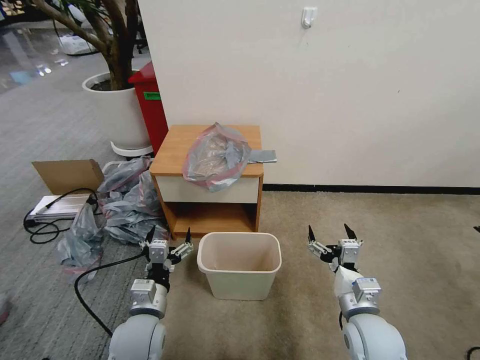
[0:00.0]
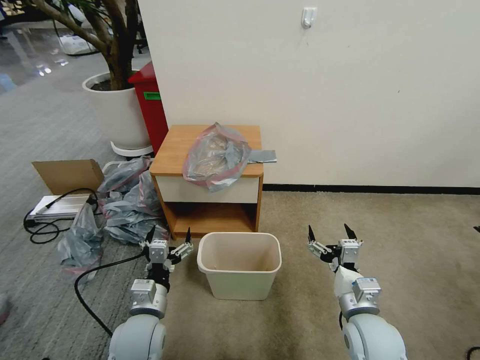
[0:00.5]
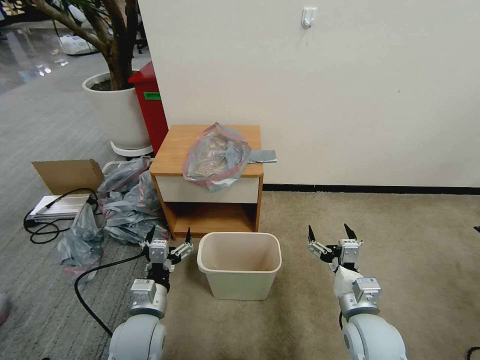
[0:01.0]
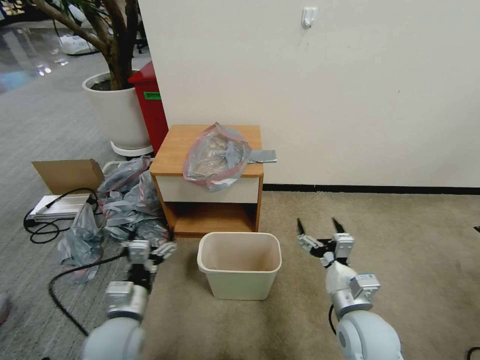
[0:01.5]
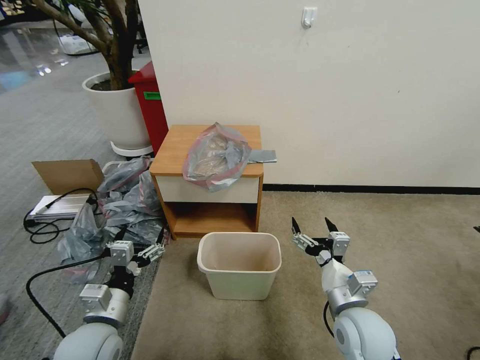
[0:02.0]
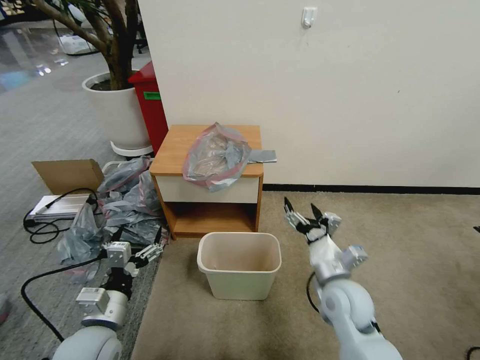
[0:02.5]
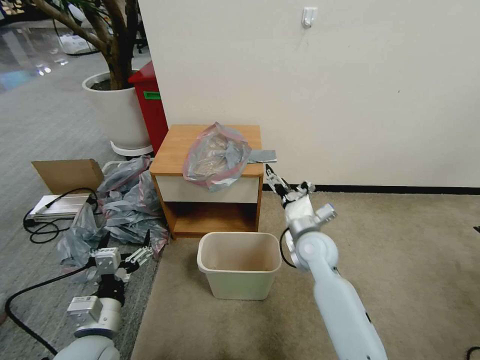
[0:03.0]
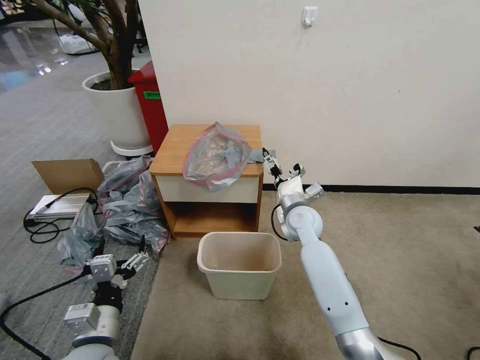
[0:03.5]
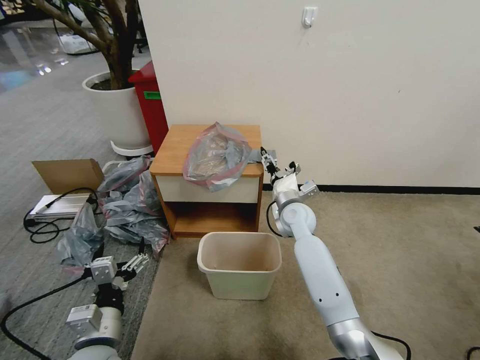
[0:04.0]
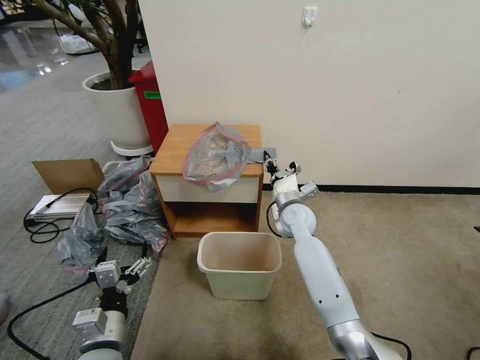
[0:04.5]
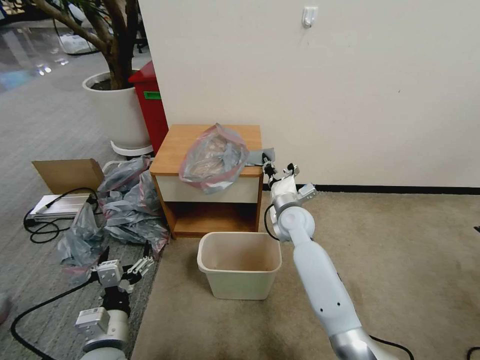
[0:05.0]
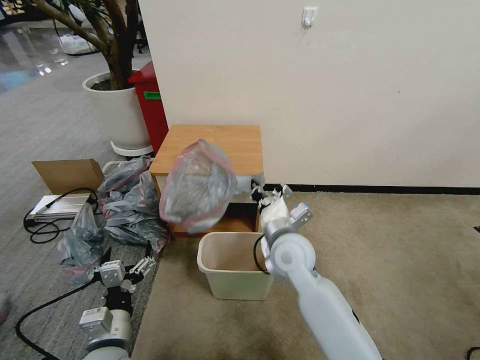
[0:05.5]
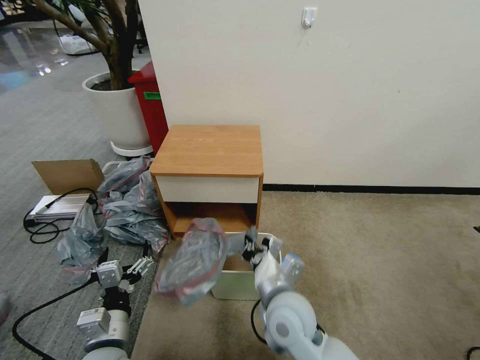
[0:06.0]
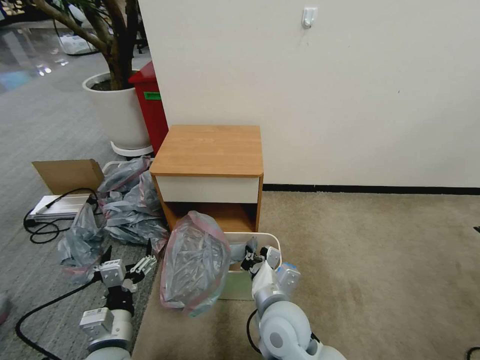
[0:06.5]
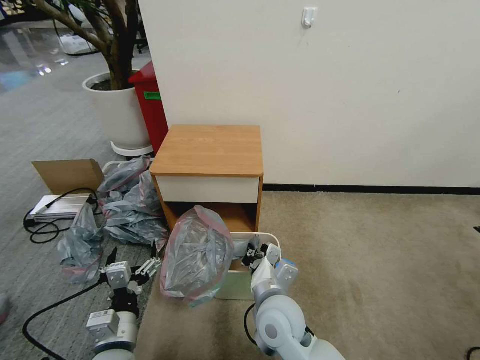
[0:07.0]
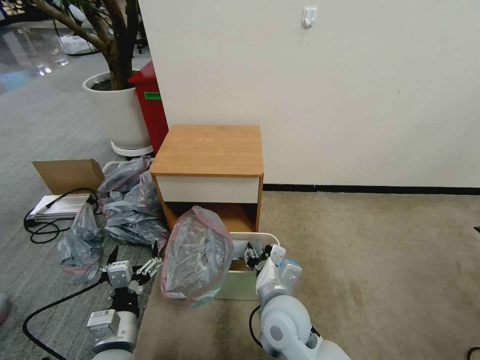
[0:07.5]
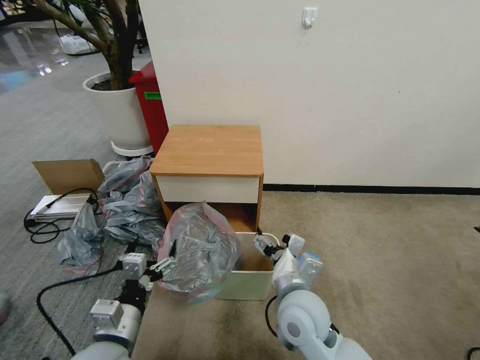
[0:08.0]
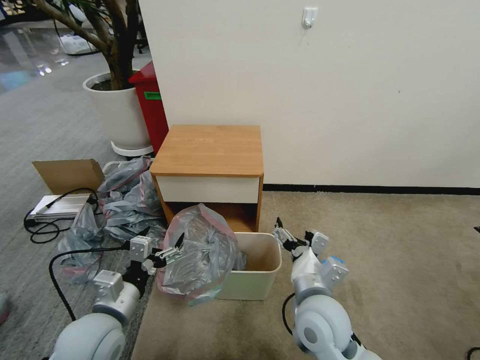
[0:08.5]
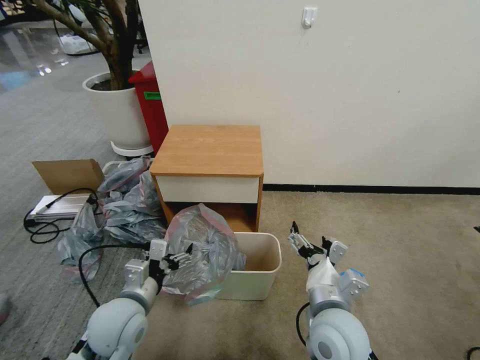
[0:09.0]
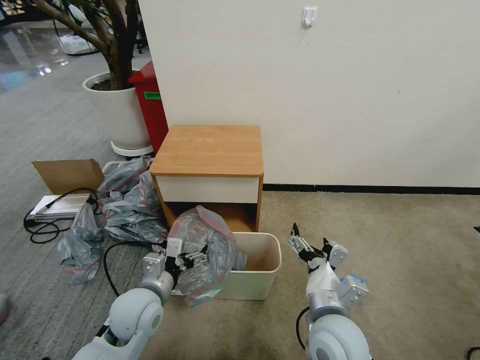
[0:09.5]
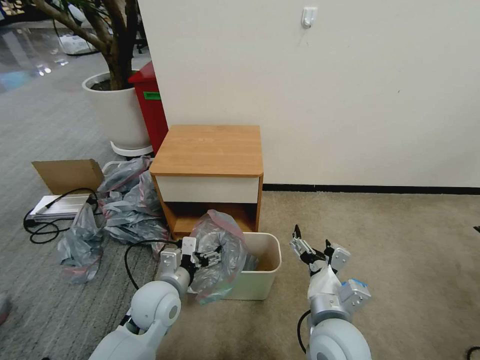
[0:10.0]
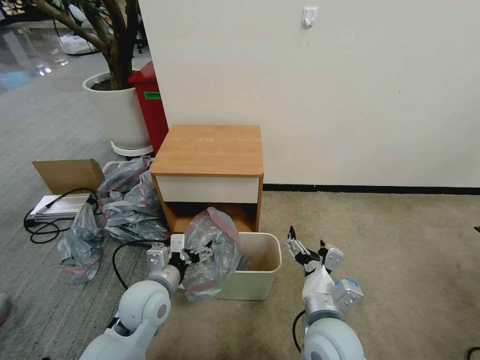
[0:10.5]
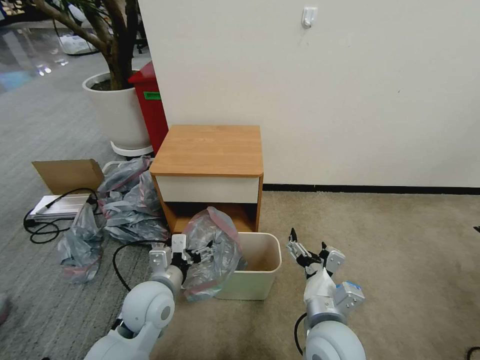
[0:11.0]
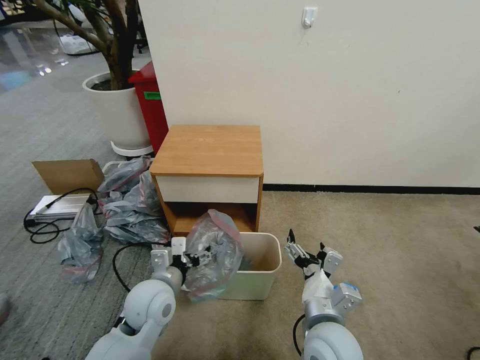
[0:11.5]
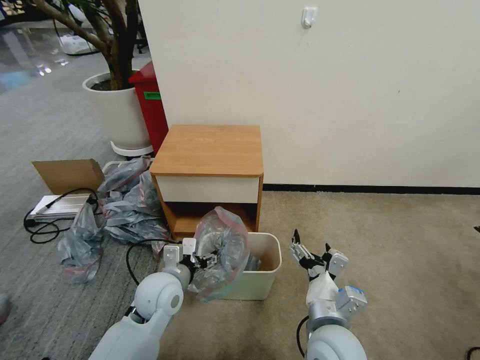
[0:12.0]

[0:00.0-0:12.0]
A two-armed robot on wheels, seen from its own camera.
Task of the whole recording: Pick up the garbage bag from the table and place it over the trash can.
0:02.0 to 0:04.0: The right gripper heads forward, covering approximately 25 cm, and closes its fingers.
0:04.0 to 0:06.0: The right gripper shifts approximately 25 cm backward, and closes up.
0:06.0 to 0:08.0: The right gripper opens.
0:08.0 to 0:10.0: The left gripper moves forward and to the right, some 15 cm. Meanwhile the right gripper shifts approximately 5 cm to the right.
0:10.0 to 0:12.0: The grippers stay close to where they were, moving slightly.

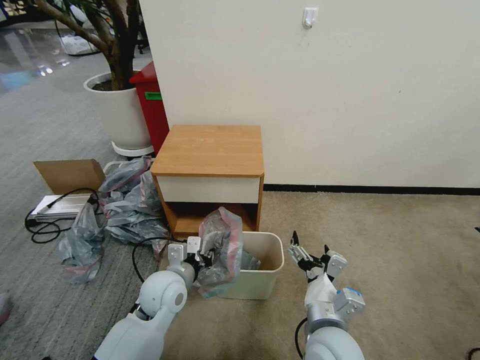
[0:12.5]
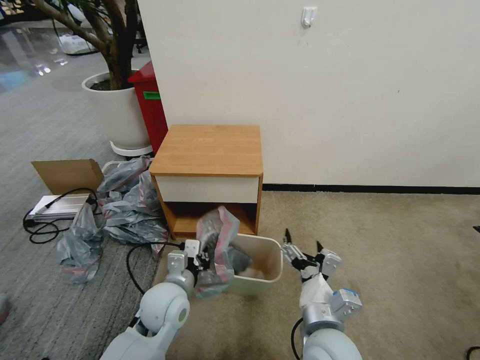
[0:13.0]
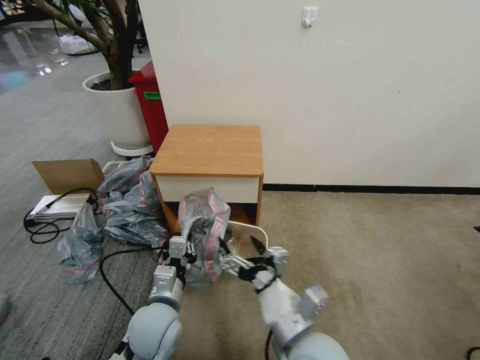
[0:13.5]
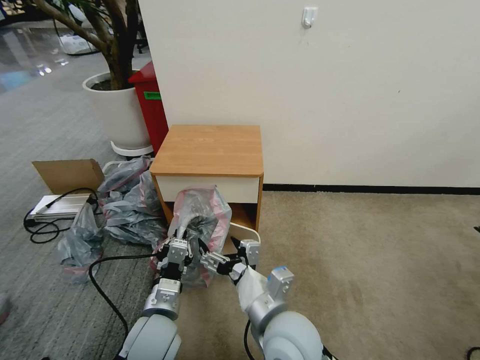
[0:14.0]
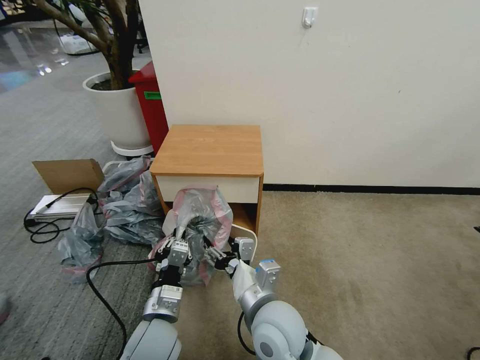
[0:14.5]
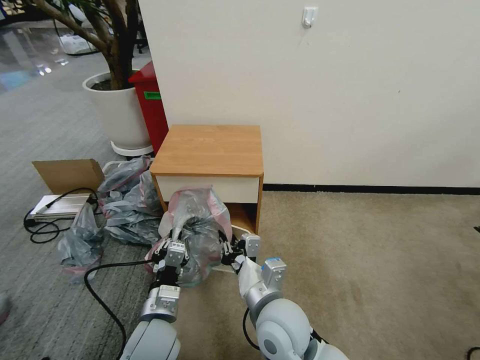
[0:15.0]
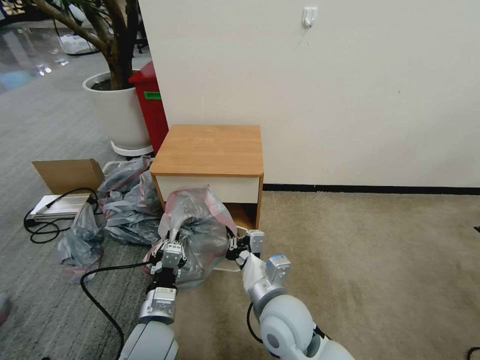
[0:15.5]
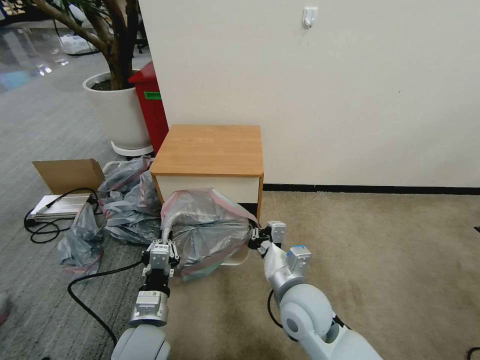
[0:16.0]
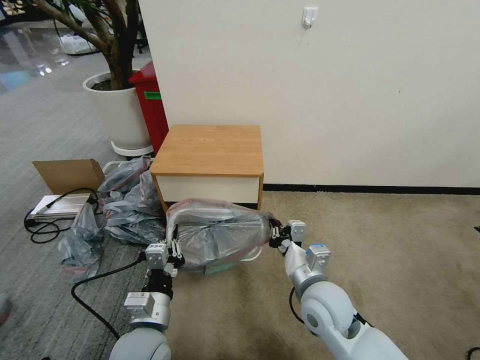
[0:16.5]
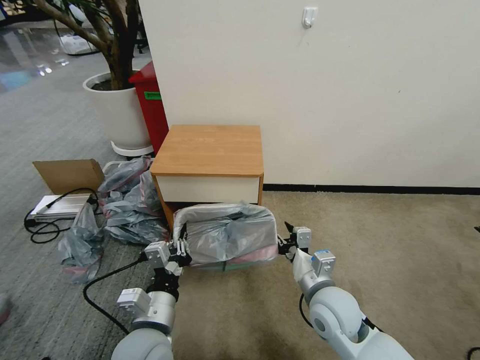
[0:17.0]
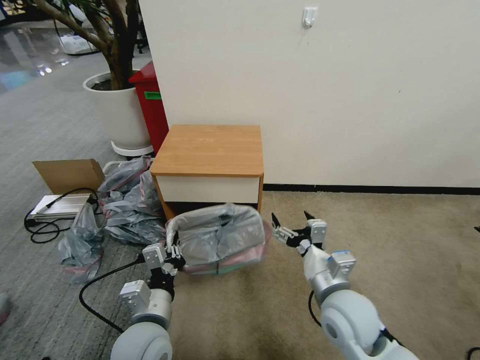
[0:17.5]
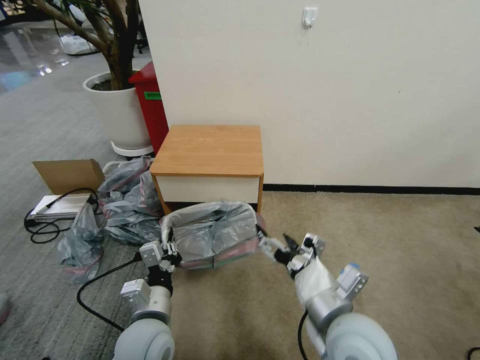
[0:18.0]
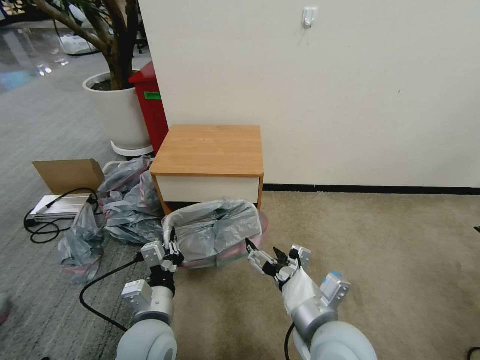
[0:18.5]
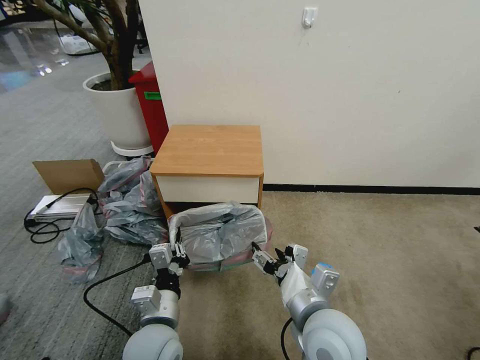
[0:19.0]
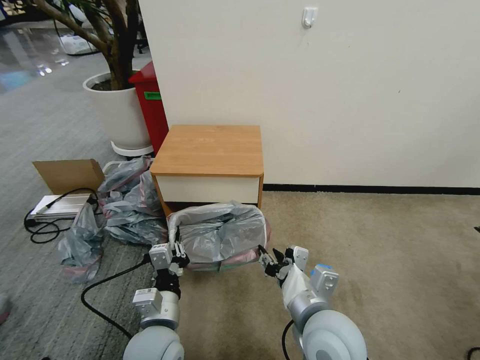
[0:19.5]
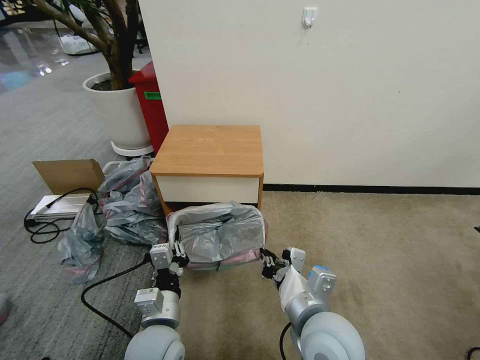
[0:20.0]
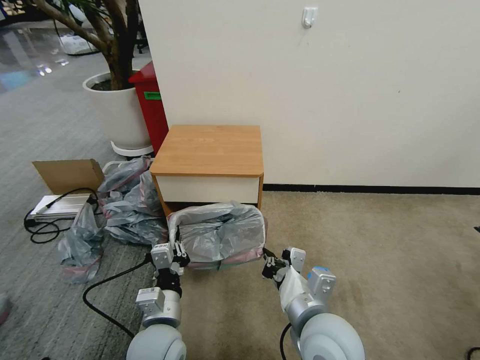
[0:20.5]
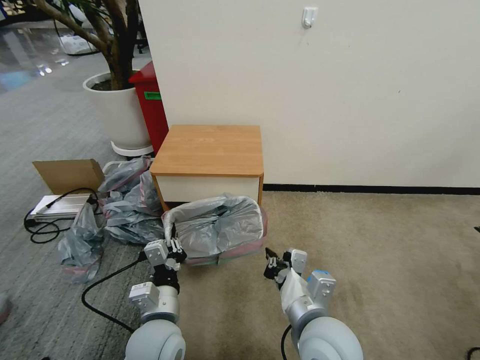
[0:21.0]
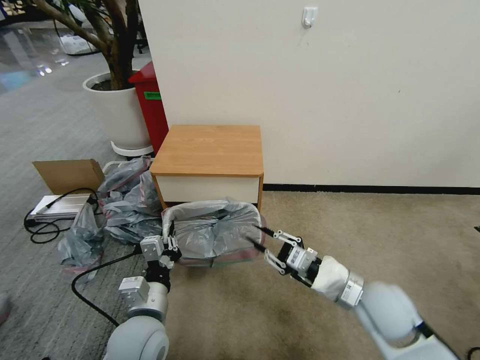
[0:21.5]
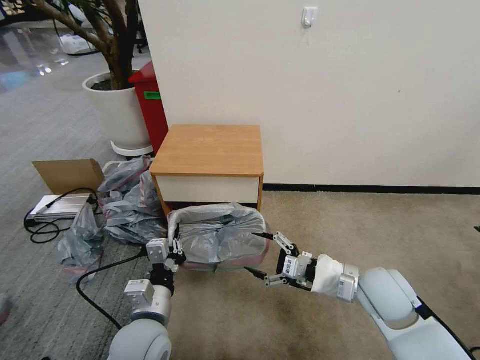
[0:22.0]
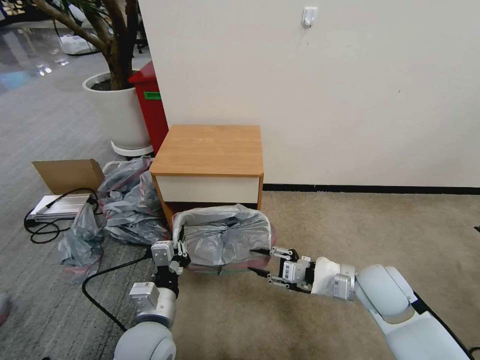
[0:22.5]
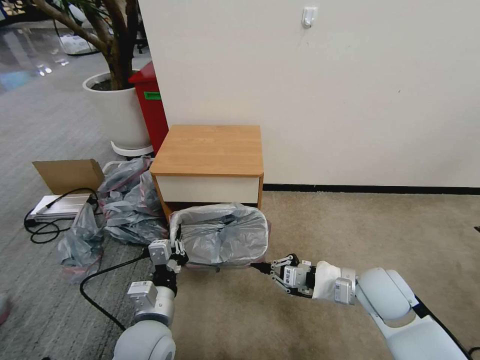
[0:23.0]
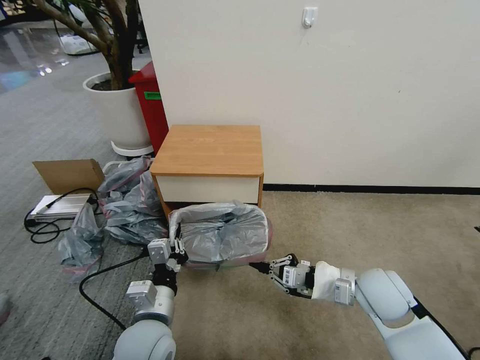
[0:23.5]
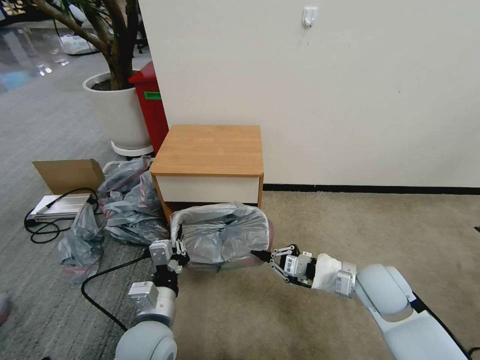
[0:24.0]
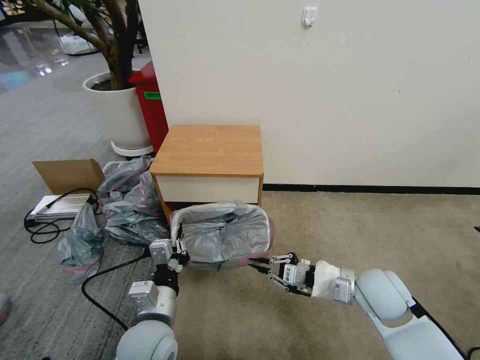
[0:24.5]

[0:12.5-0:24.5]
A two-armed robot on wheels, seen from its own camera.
Task of the whole recording: Pick up the garbage bag from the table and place it over the trash can.
0:12.5 to 0:14.5: The left gripper shifts roughly 10 cm backward. Meanwhile the right gripper heads to the left, covering approximately 10 cm.
0:14.5 to 0:16.5: The right gripper is displaced to the right by some 10 cm, and closes up.
0:16.5 to 0:18.5: The right gripper goes some 10 cm backward and upward, and opens its fingers.
0:18.5 to 0:20.5: The right gripper closes its fingers.
0:20.5 to 0:22.5: The right gripper travels to the right and forward by roughly 20 cm, and opens.
0:22.5 to 0:24.5: The grippers stay close to where they were, moving slightly.

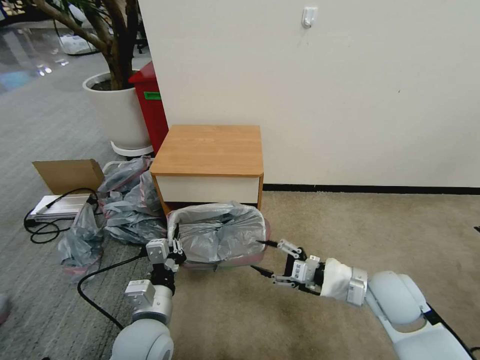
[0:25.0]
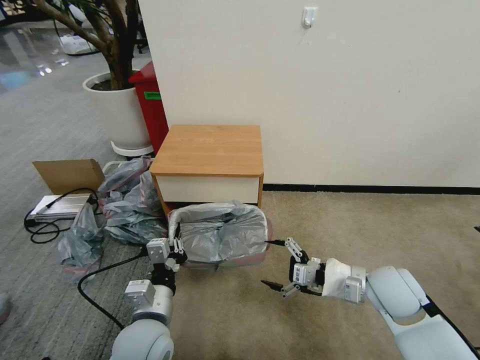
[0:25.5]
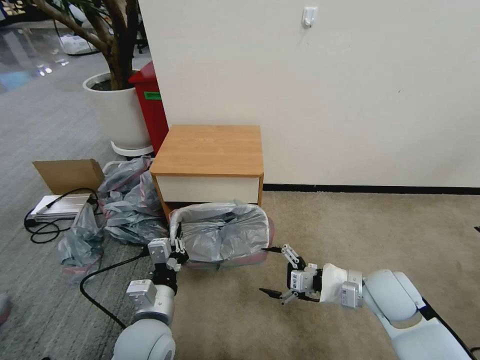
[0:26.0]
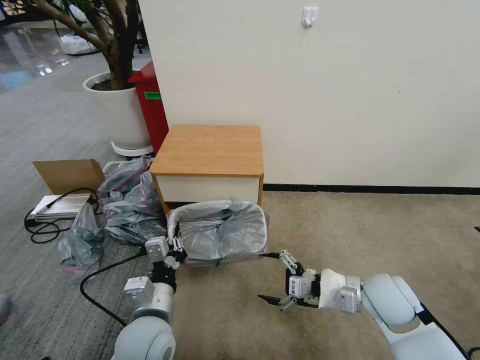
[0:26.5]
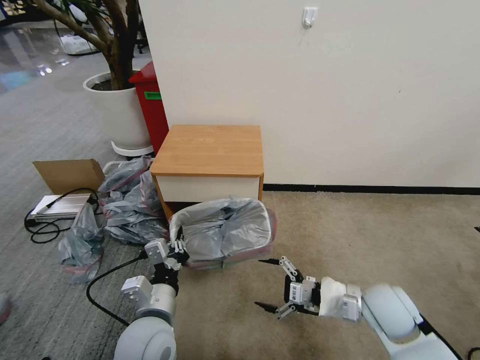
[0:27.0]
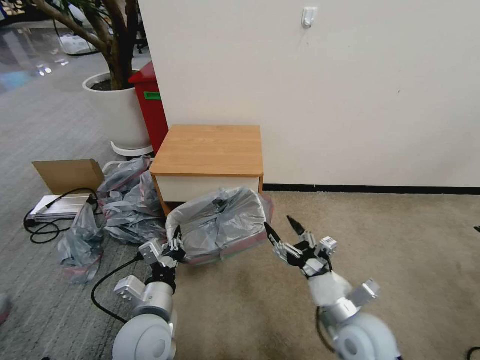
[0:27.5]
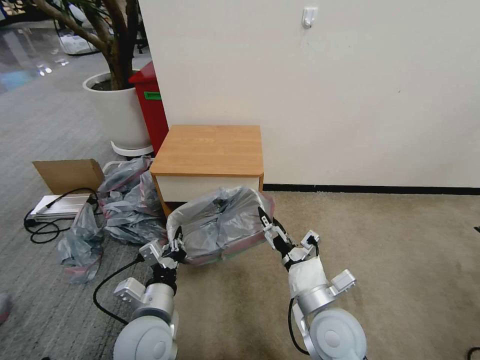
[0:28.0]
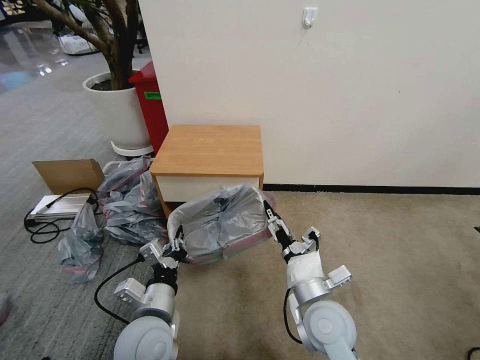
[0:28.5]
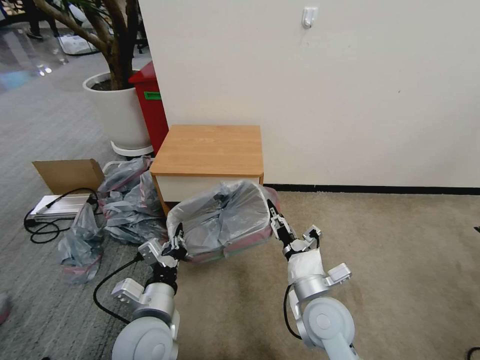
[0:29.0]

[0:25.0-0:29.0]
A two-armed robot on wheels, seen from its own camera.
Task of the whole recording: Pick up the garbage bag from the table and place it over the trash can.
0:25.0 to 0:27.0: The right gripper opens up.
0:27.0 to 0:29.0: The right gripper moves to the left, approximately 15 cm, and closes.
